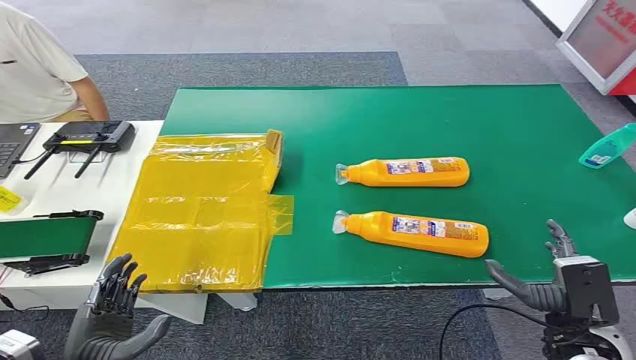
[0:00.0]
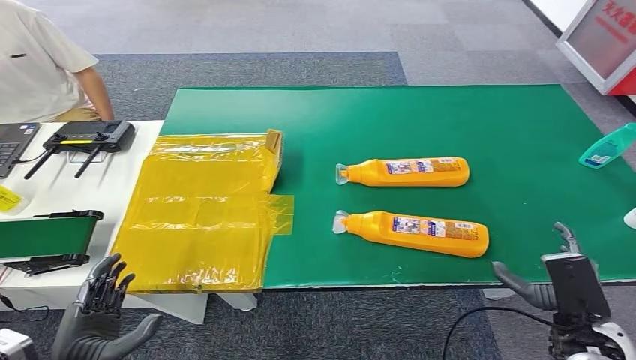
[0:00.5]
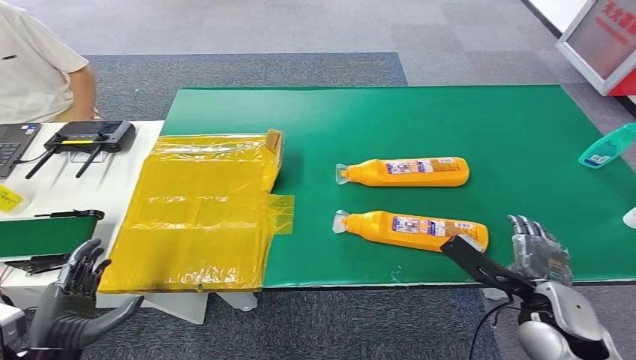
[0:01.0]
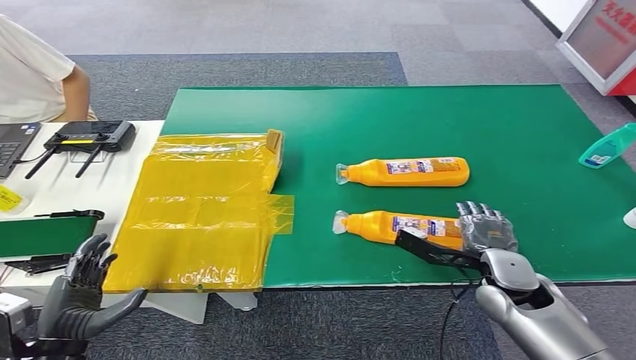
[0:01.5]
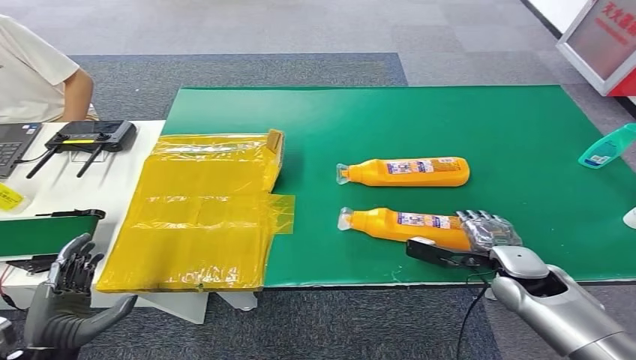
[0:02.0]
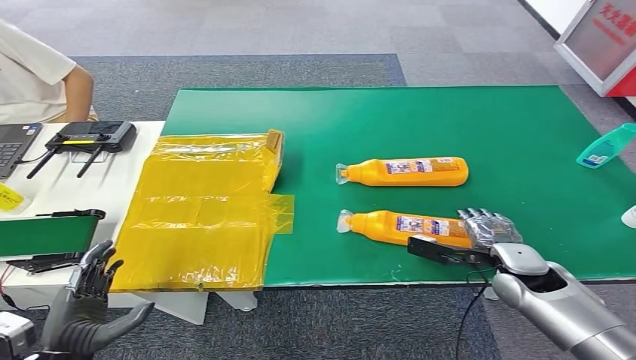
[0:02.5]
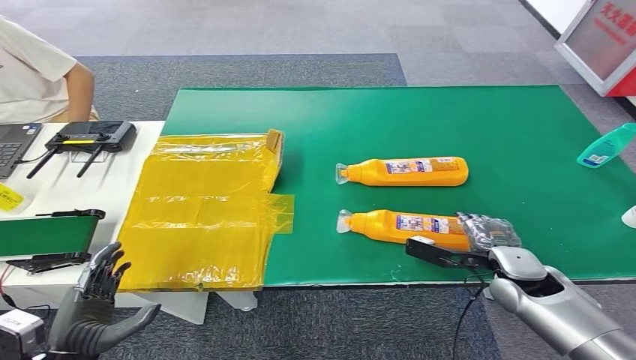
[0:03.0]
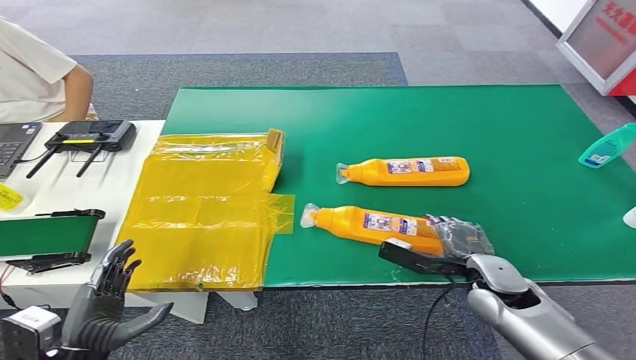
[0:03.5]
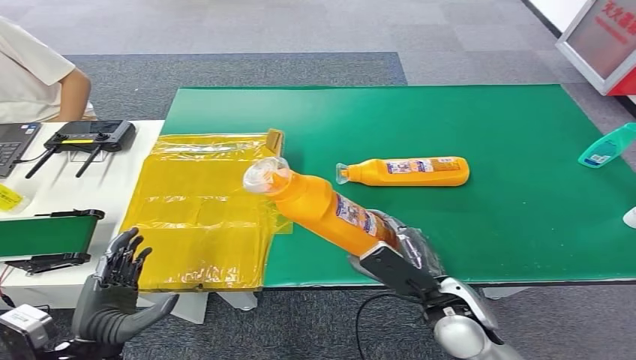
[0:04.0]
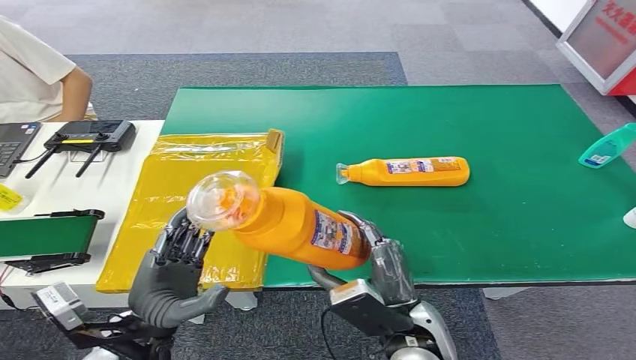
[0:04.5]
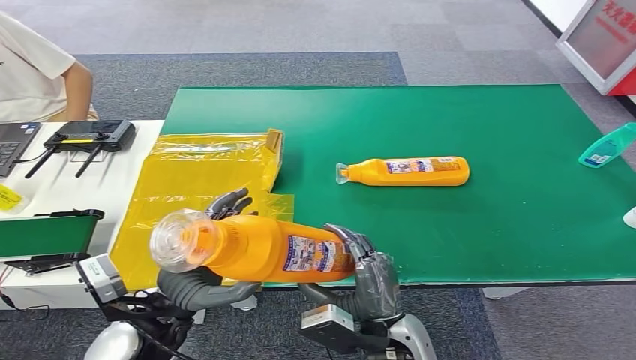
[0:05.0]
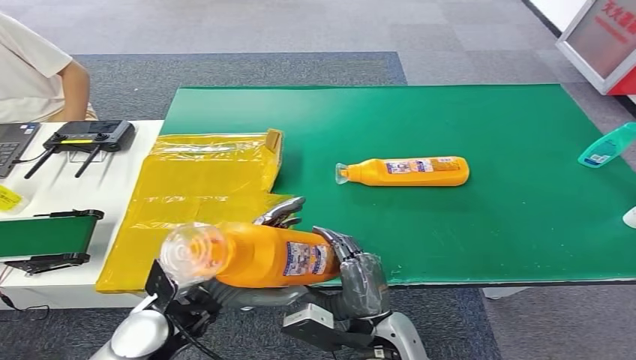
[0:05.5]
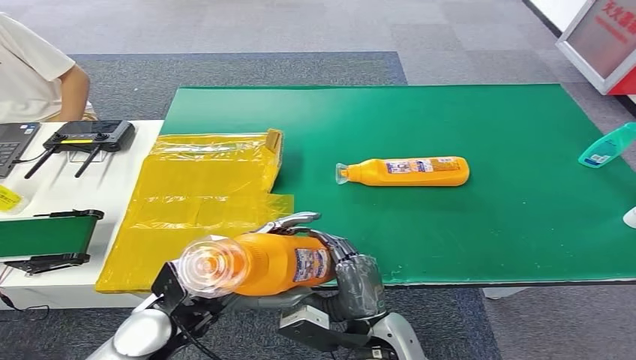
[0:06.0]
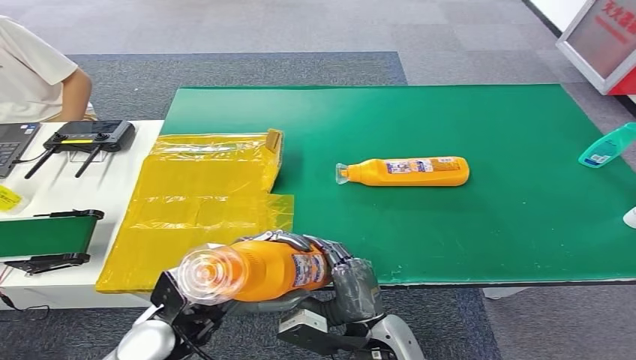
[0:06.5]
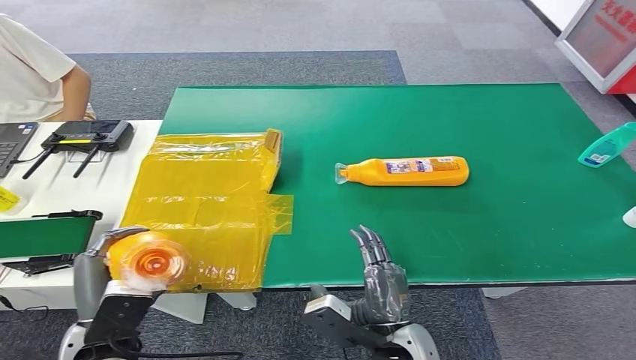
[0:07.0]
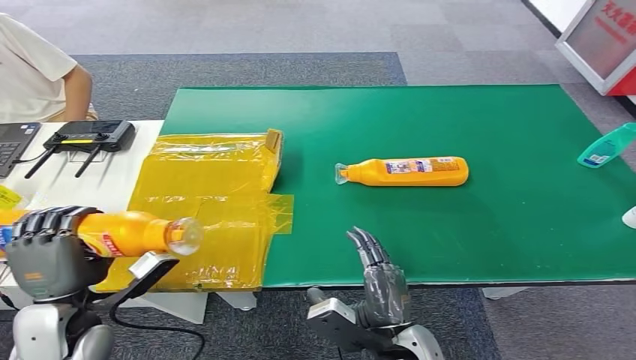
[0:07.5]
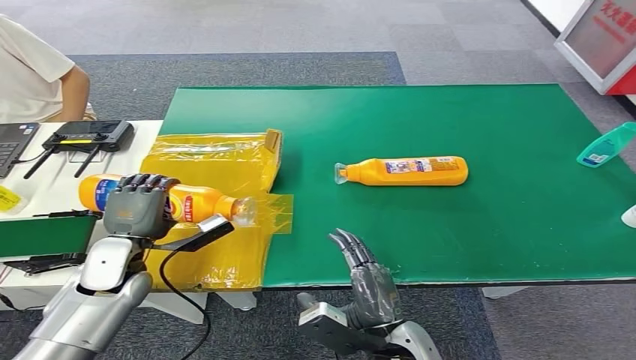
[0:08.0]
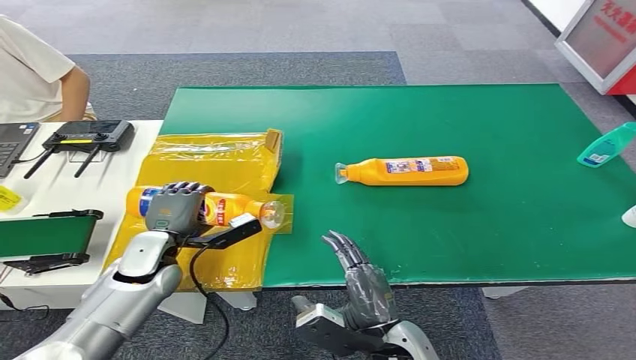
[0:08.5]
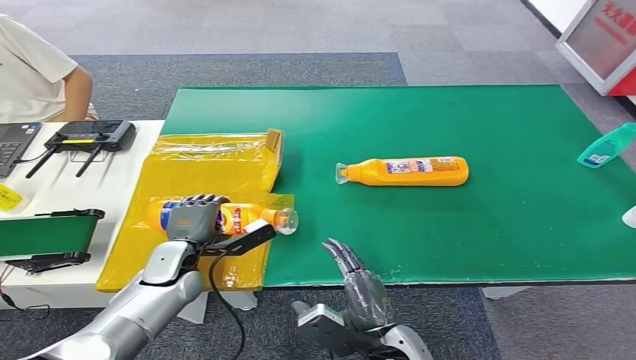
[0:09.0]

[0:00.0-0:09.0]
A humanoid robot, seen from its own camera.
Step, 0:00.0 to 0:04.5: Pick up the bottle from the table.
0:04.5 to 0:07.0: The right hand goes approximately 5 cm downward.
0:07.0 to 0:09.0: The left hand travels forward and downward by approximately 20 cm.

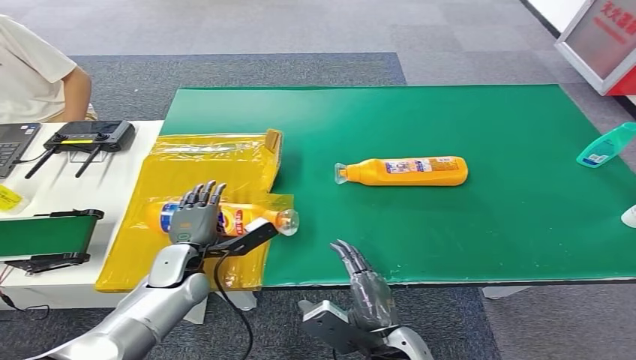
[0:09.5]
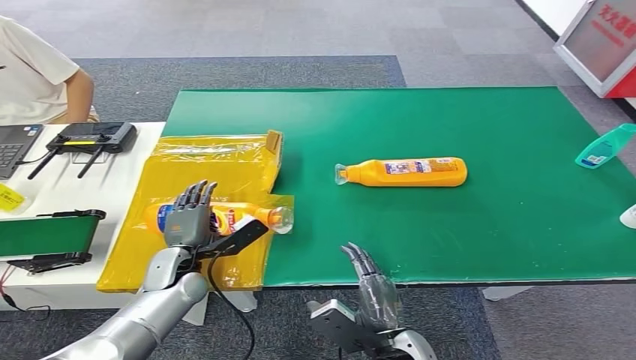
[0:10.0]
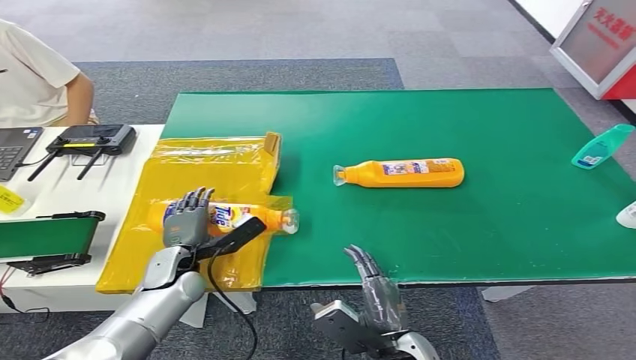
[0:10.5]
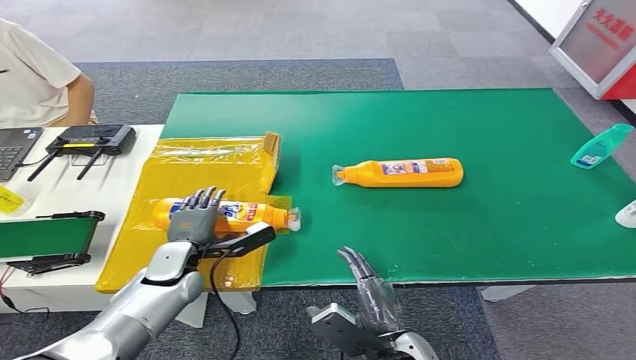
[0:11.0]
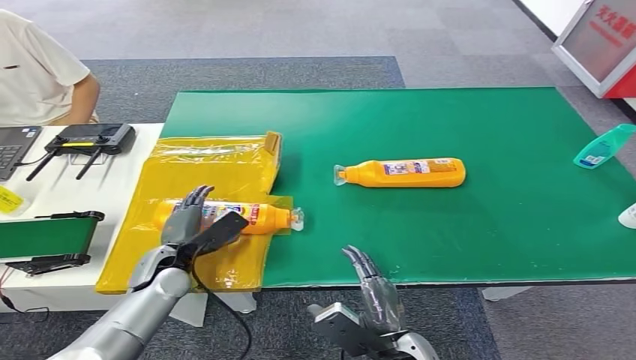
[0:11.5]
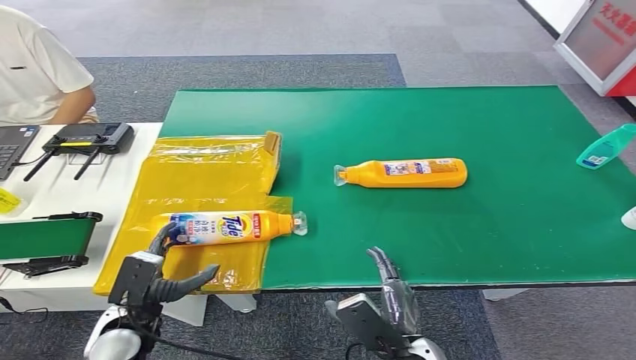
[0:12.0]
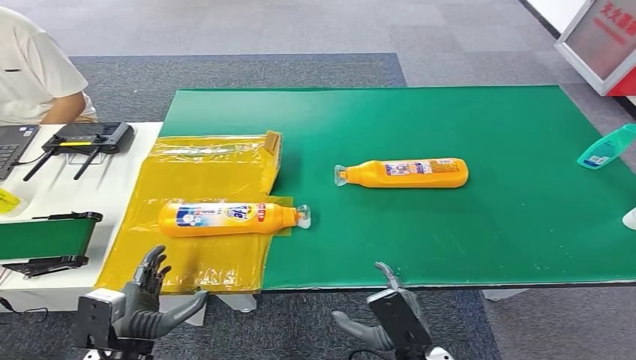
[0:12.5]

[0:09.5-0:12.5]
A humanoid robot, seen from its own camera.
Step, 0:09.5 to 0:12.5: Turn the bottle to the front side.
0:09.5 to 0:11.0: The hands make only small movements.
0:11.0 to 0:12.5: The left hand travels backward by about 20 cm.

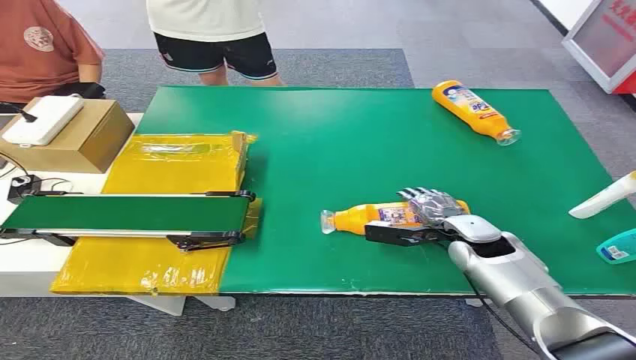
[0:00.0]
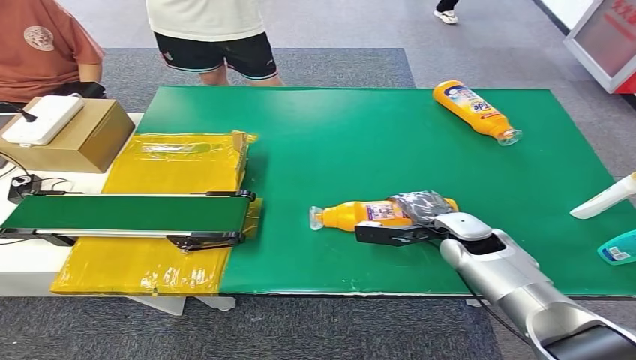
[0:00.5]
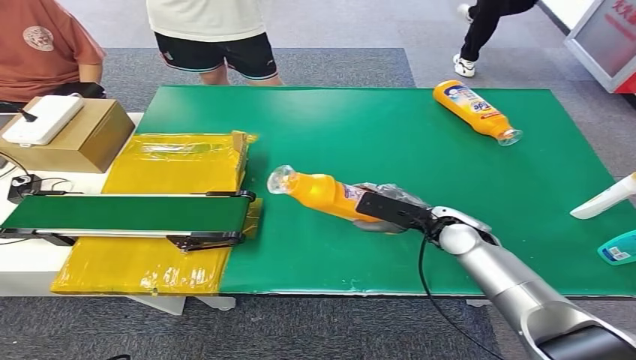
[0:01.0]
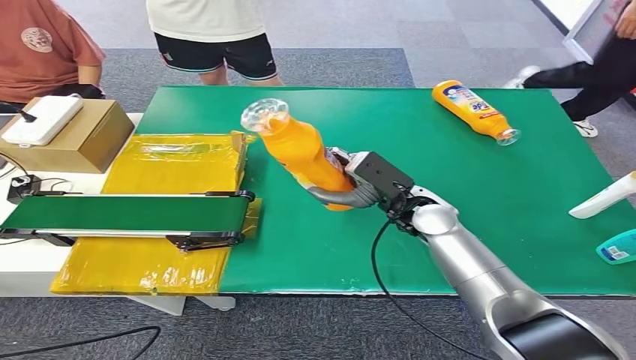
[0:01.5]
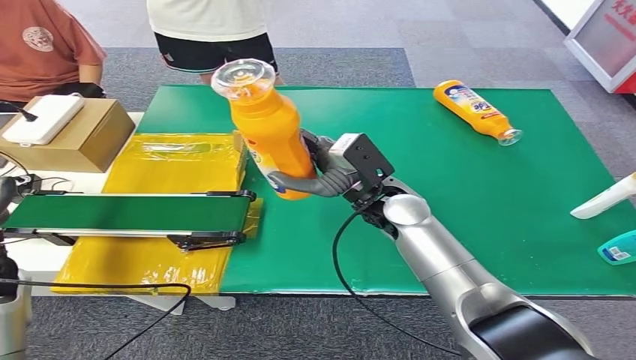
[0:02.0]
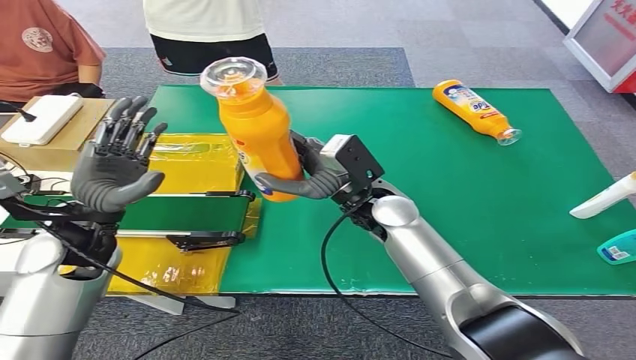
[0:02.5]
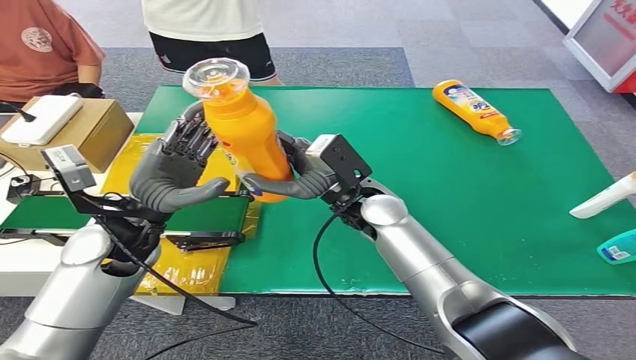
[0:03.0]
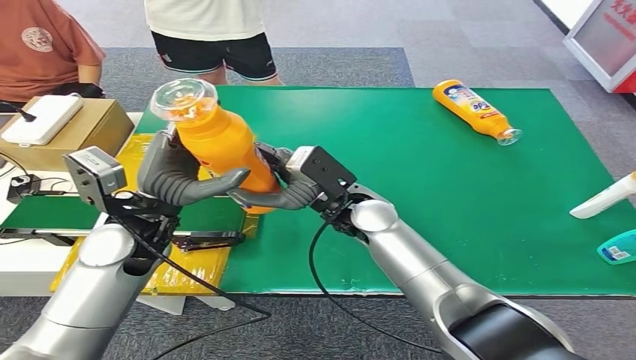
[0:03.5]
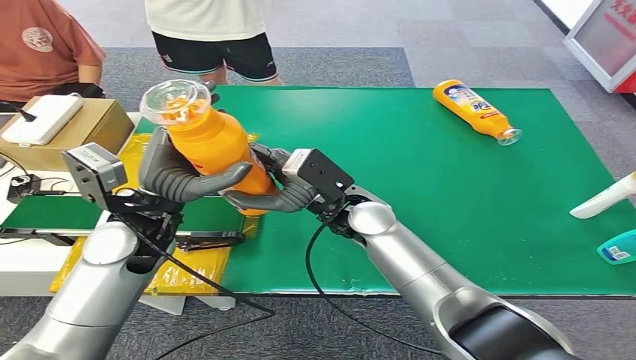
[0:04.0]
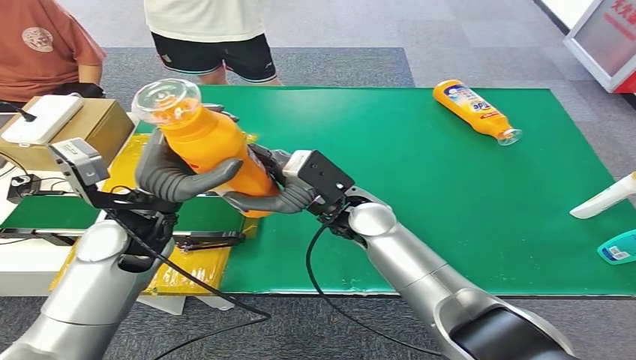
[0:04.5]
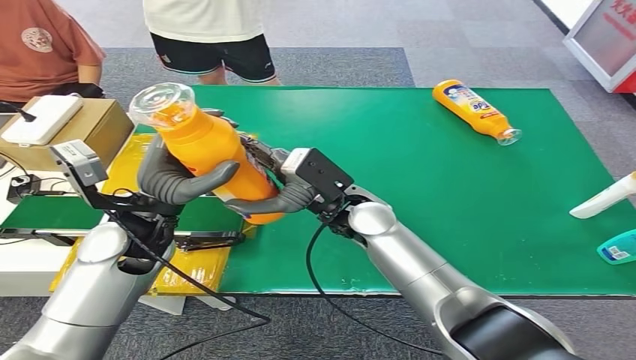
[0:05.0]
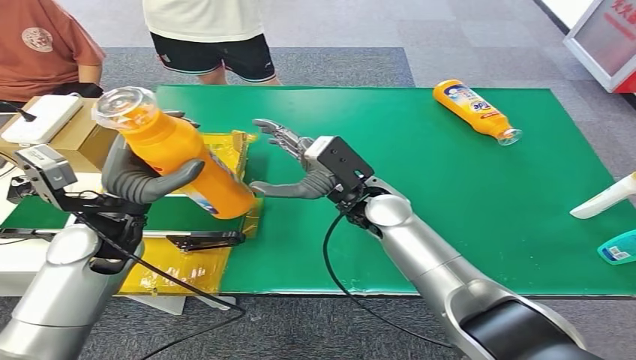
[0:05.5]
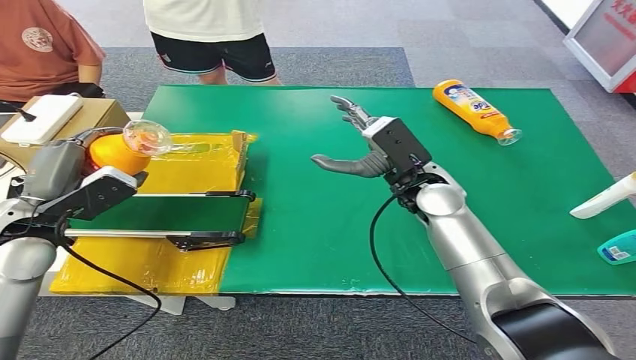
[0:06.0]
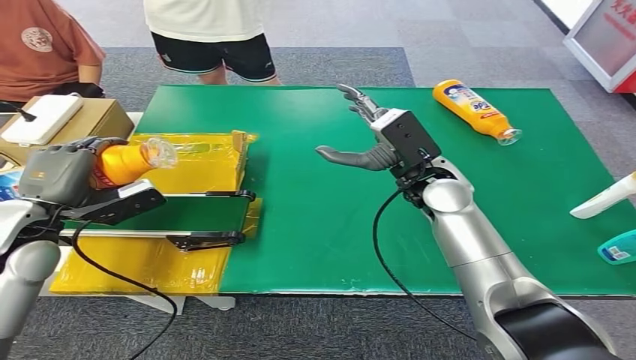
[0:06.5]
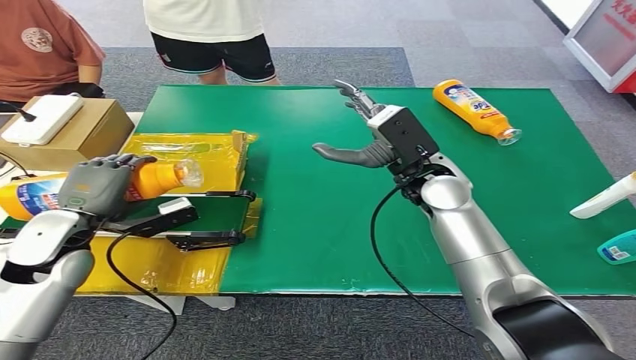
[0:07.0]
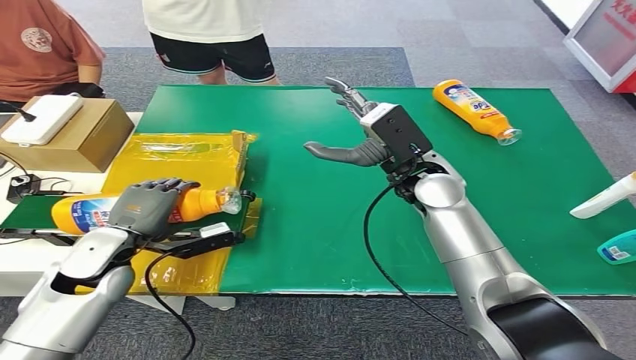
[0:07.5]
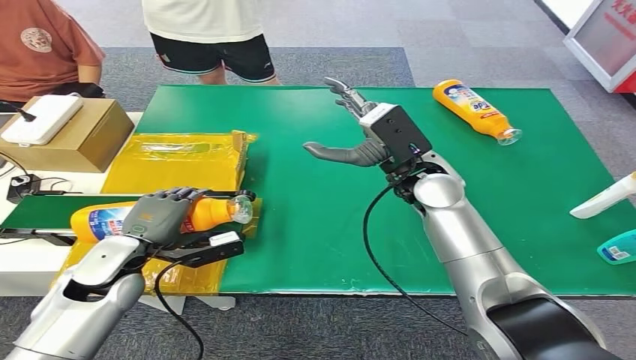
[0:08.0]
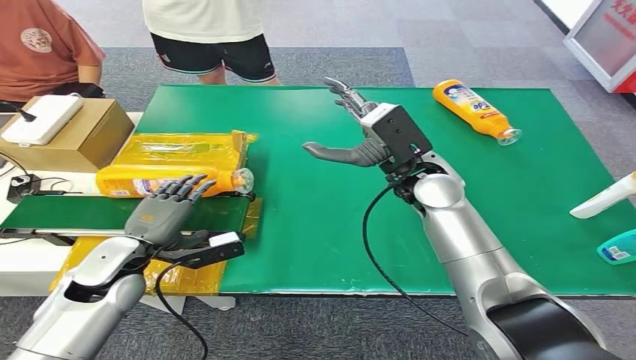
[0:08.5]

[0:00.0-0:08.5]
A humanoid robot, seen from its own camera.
Step, 0:00.0 to 0:01.5: Pick up the bottle from the table.
Step, 0:02.0 to 0:08.5: Turn the bottle to the front side.
